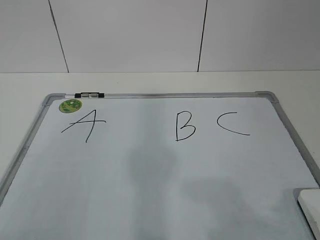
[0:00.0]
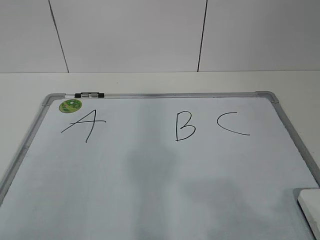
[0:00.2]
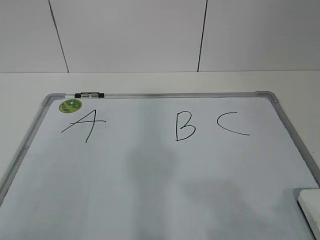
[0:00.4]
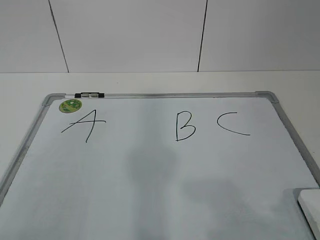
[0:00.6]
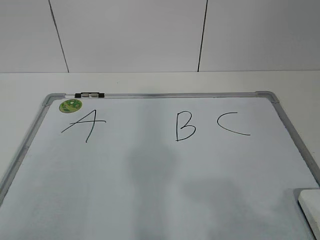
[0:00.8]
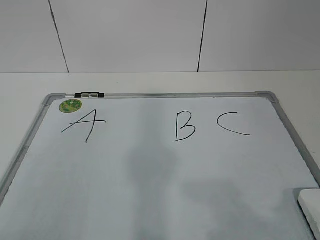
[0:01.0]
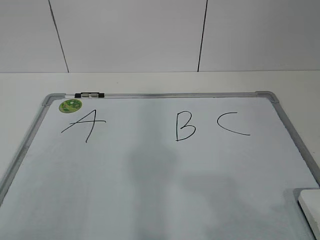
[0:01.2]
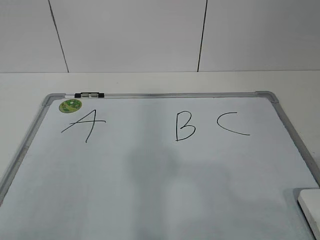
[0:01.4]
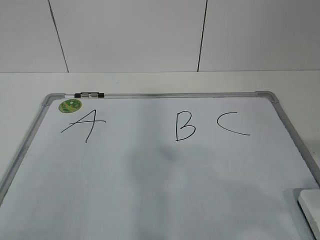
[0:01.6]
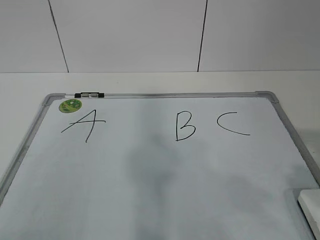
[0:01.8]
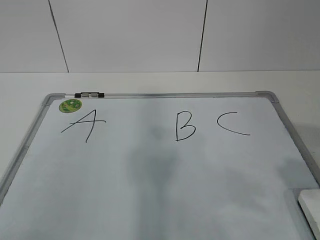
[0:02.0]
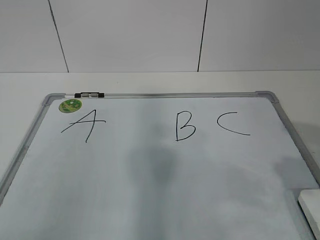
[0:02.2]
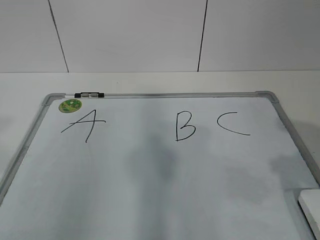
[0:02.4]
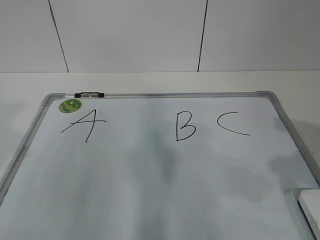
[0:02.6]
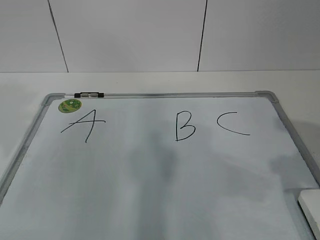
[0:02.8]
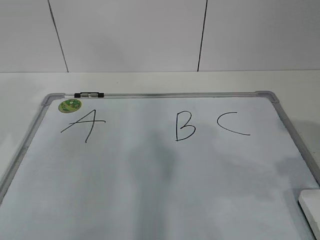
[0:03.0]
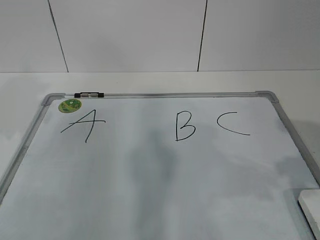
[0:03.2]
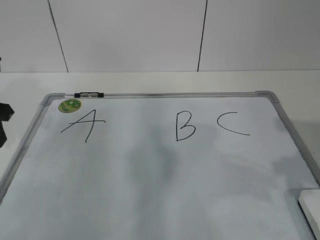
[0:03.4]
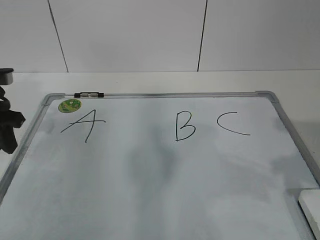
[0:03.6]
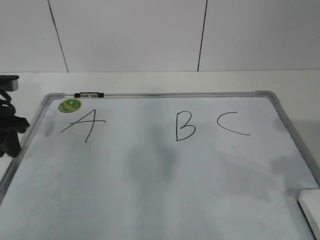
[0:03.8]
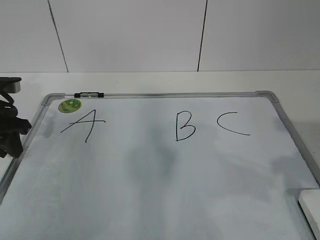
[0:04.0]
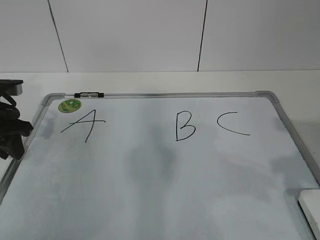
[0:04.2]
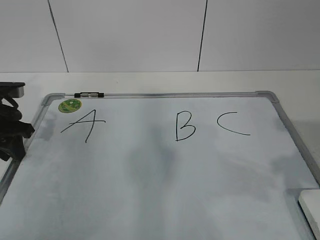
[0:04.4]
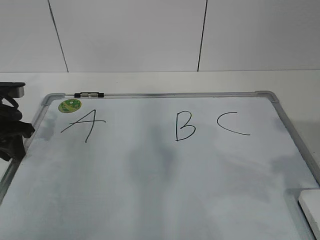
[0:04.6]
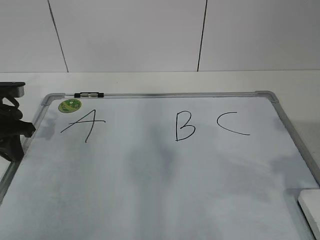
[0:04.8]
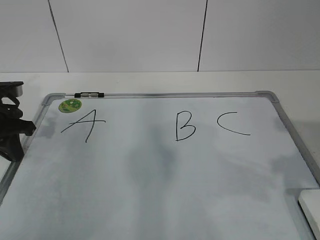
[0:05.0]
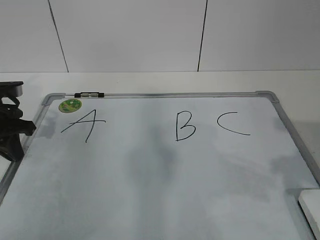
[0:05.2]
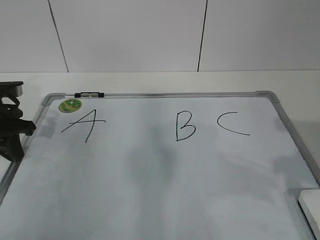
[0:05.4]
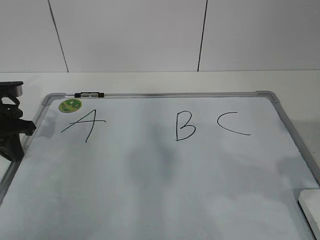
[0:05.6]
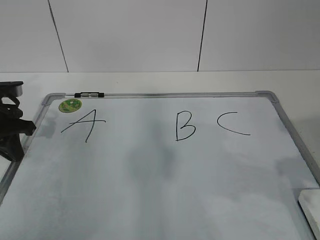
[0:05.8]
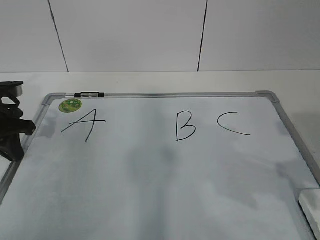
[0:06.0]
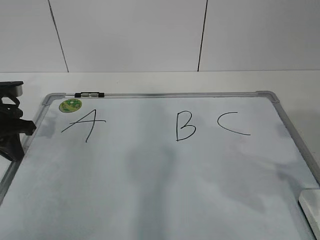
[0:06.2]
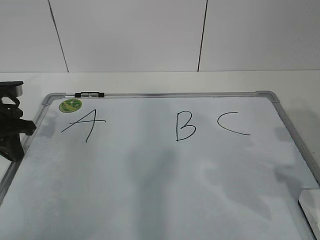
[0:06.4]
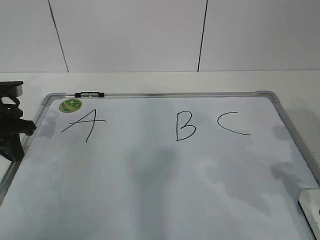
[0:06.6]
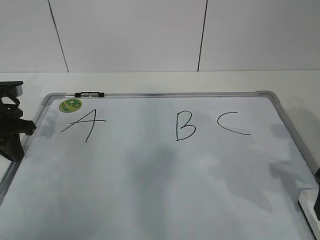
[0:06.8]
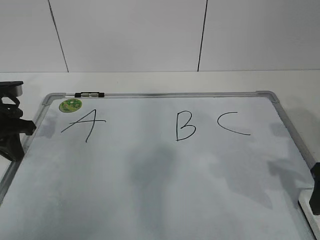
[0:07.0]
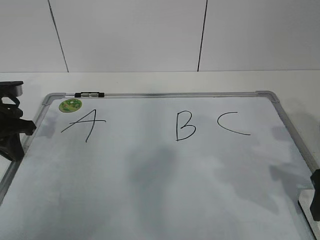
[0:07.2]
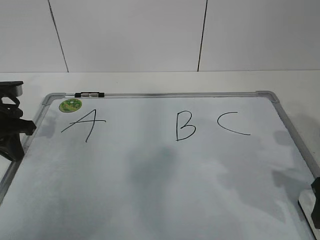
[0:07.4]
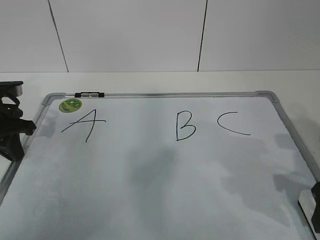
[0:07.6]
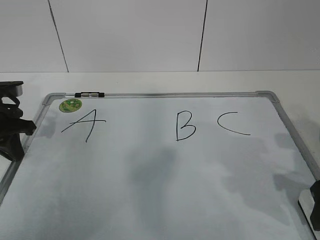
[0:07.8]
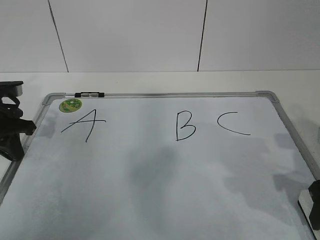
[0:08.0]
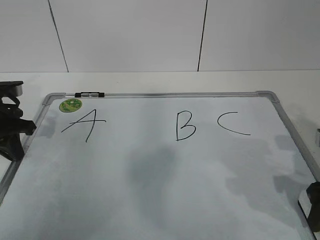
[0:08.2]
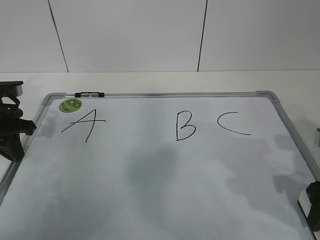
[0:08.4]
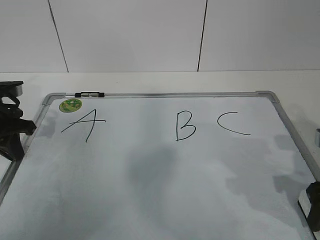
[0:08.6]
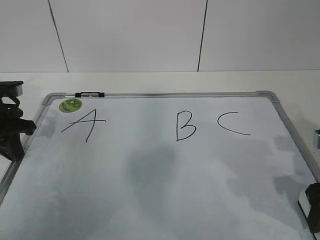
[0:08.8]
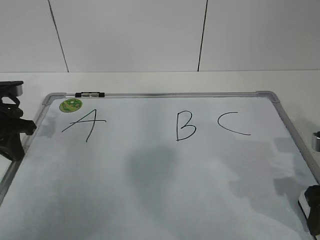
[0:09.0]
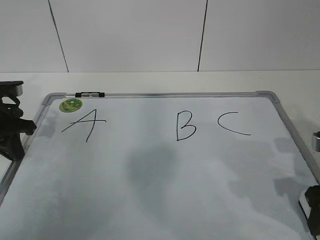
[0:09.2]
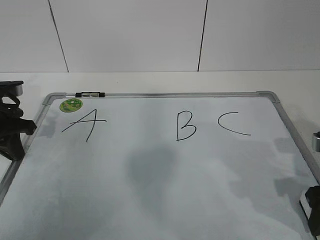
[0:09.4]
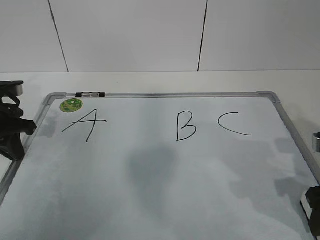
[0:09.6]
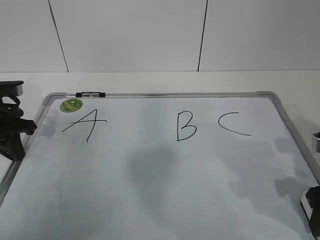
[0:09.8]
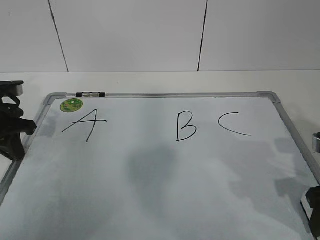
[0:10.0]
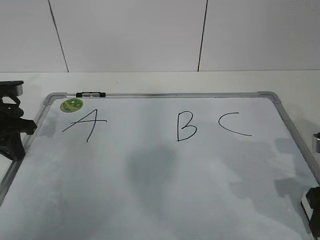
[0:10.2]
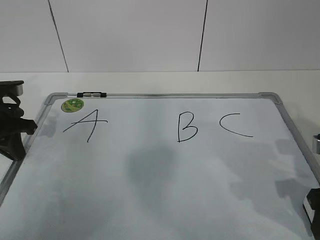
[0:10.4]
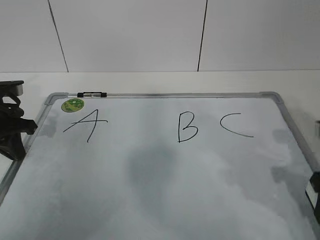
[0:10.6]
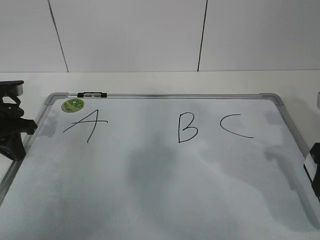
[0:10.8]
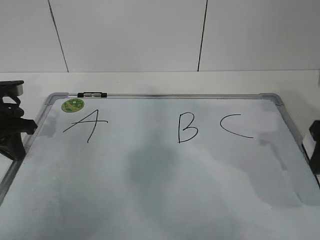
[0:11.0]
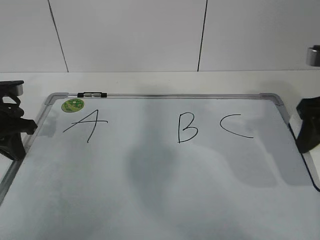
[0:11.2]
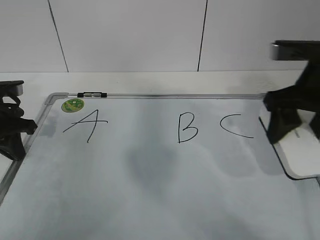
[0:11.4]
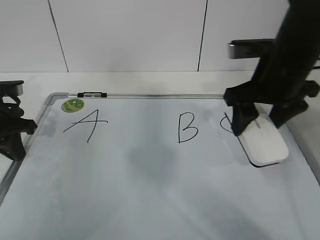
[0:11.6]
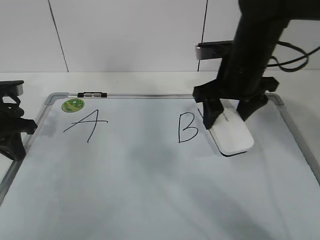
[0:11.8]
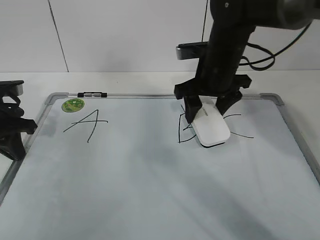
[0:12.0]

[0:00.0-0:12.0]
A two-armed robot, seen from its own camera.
Task of the whole recording: pick up the eraser on the blackboard and erase the letter "B".
Step, 0:00.0 to 0:04.0: Hold the drawing board steady with your left hand.
0:03.0 to 0:04.4: The left gripper is displaced downward and forward by about 15 cm.
0:04.4 to 0:06.0: The left gripper closes.
0:06.0 to 0:07.6: The right gripper shifts approximately 5 cm downward.
0:09.0 to 0:10.4: The right gripper closes up.
0:10.4 to 0:12.0: The right gripper shifts roughly 25 cm forward and to the left.

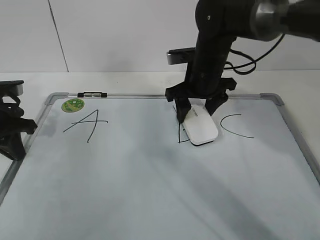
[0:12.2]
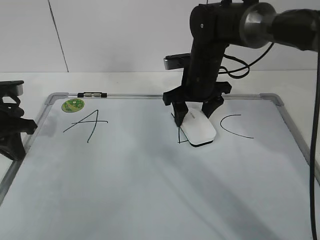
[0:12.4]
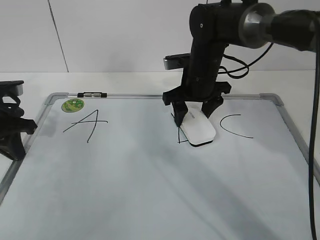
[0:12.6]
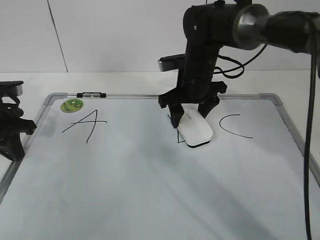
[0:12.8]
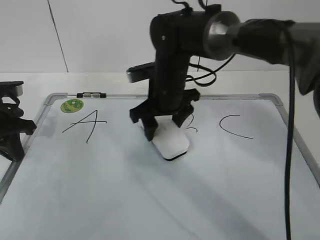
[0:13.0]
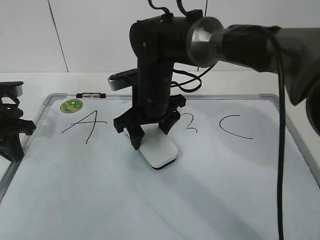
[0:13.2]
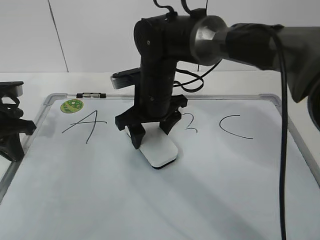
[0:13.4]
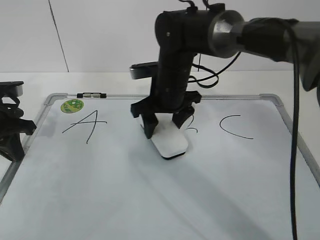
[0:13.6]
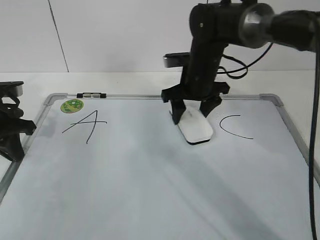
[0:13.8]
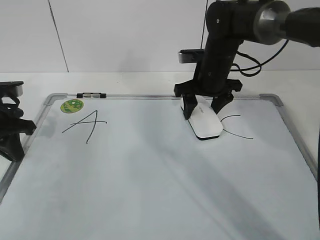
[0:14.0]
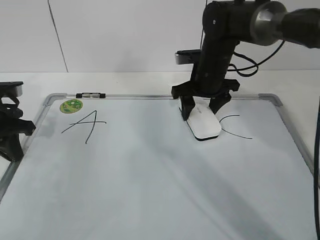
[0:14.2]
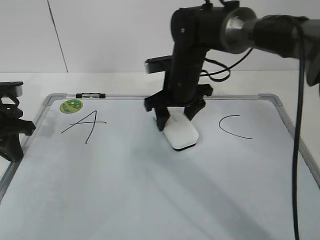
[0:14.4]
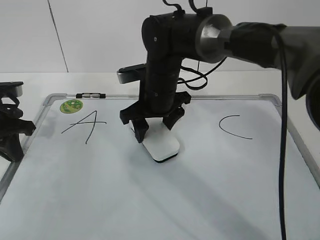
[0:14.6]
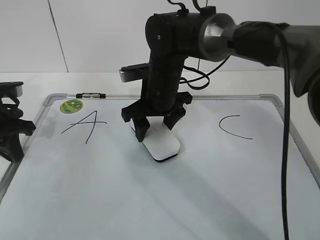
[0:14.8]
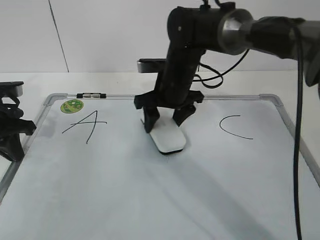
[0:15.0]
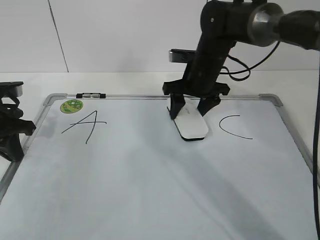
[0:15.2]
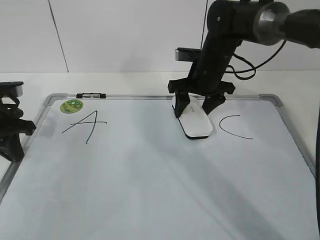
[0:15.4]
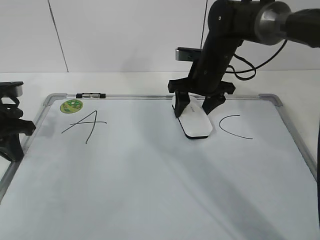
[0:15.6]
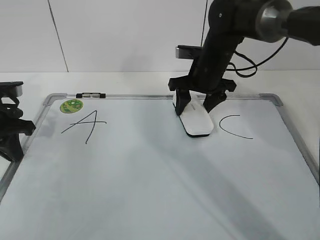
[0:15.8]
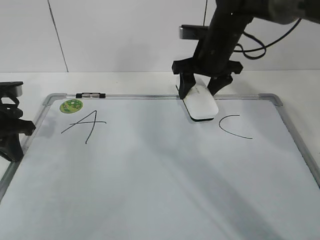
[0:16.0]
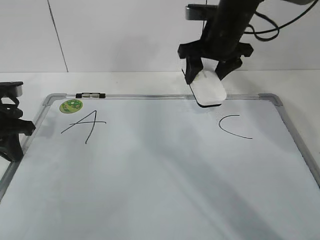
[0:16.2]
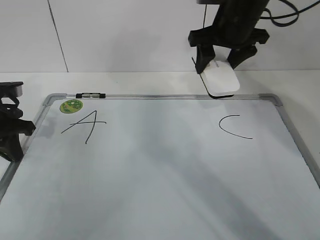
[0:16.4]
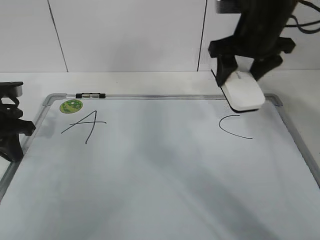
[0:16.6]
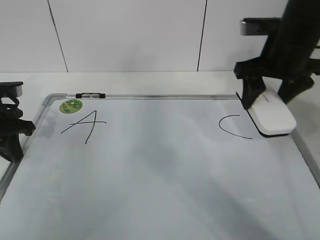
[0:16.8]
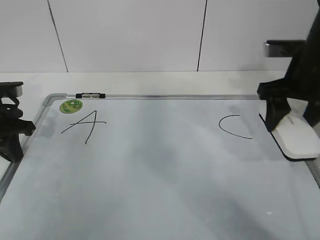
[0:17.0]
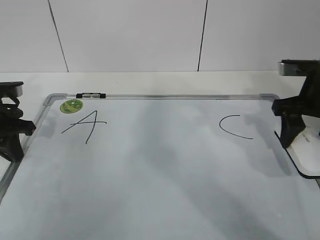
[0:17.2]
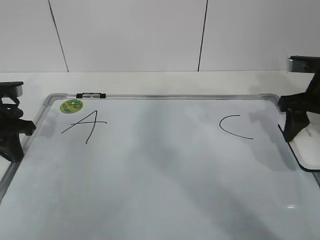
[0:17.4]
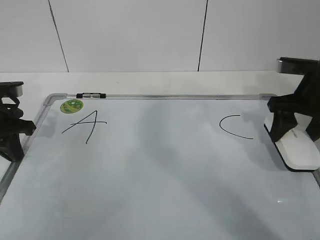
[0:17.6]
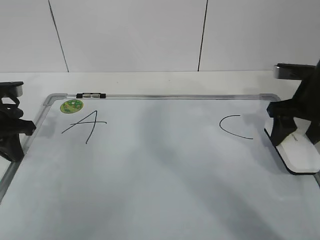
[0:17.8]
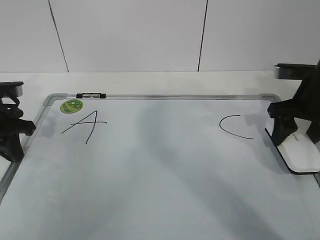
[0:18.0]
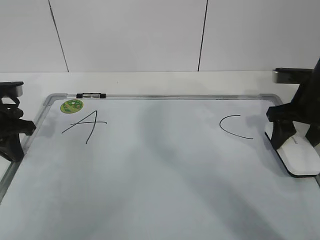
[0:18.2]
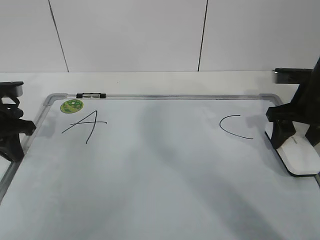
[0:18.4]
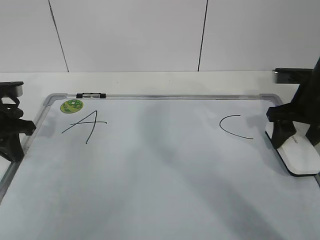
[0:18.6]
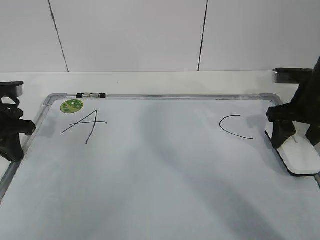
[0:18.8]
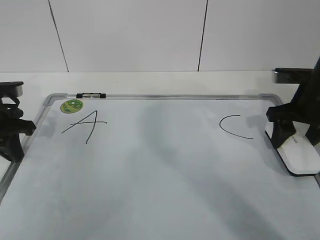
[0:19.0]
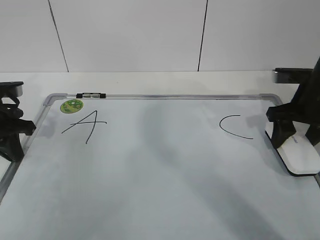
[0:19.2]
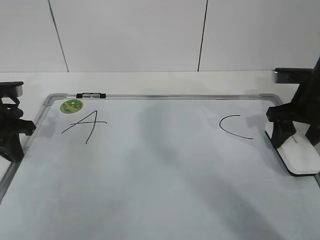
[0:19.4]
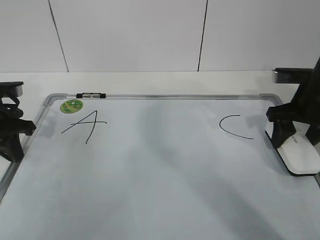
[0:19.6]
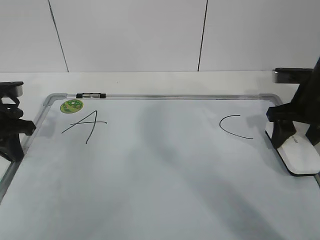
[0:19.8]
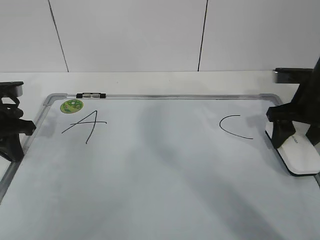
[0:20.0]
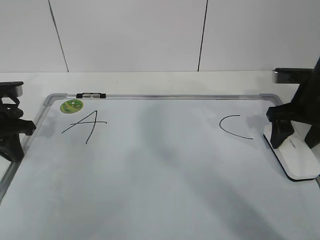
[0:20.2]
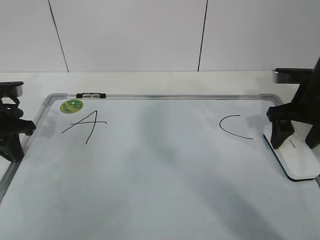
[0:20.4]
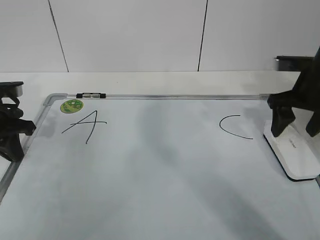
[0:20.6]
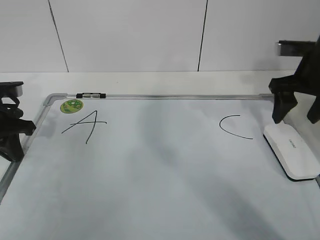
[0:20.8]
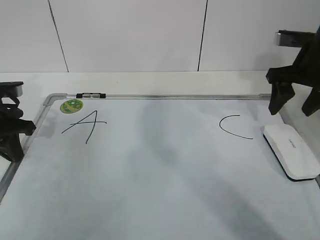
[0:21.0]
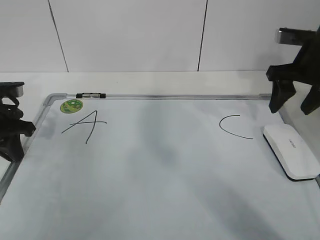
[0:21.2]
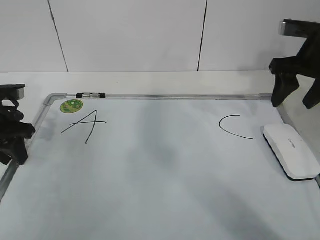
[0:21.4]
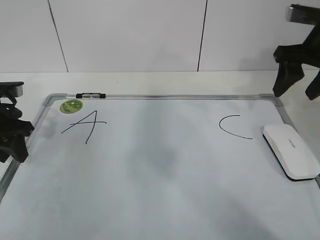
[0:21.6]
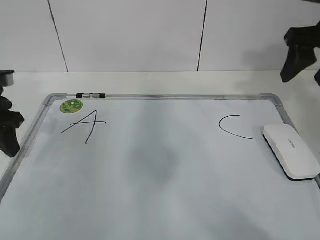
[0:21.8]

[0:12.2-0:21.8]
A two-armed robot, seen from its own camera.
Task of the whole recording: pick up the eraser on the blackboard and erase the letter "B".
Step, 0:13.2 to 0:16.6: Put down the eraser with your right hand.
0:12.2 to 0:13.8: The right gripper reaches some 10 cm to the left, then returns.
0:13.8 to 0:15.4: The right gripper goes to the left and returns, roughly 5 cm each way.
0:15.4 to 0:17.0: The right gripper is displaced to the right, backward and upward by roughly 20 cm.
0:17.0 to 0:18.6: The right gripper heads downward, covering some 5 cm.
0:18.6 to 0:20.2: The right gripper opens its fingers.
0:20.2 to 0:21.8: The left gripper opens its fingers. The right gripper moves upward, roughly 15 cm, and closes its fingers.

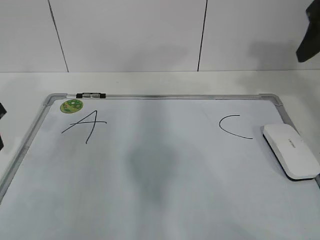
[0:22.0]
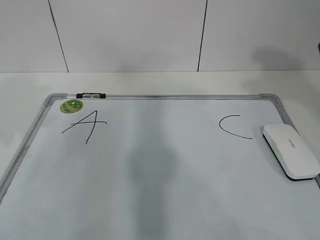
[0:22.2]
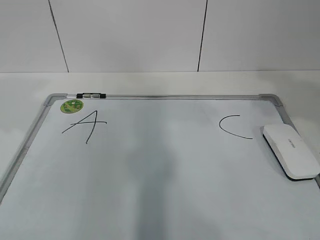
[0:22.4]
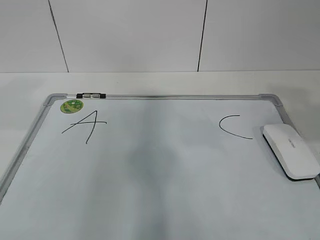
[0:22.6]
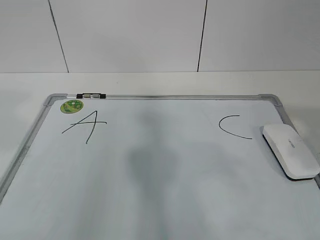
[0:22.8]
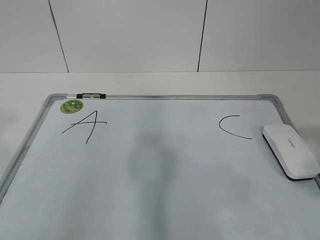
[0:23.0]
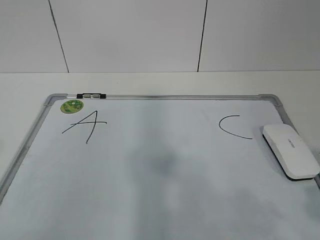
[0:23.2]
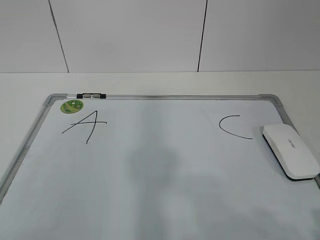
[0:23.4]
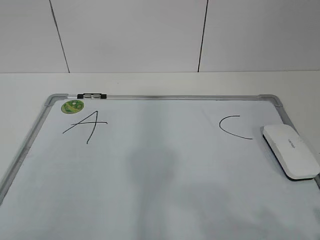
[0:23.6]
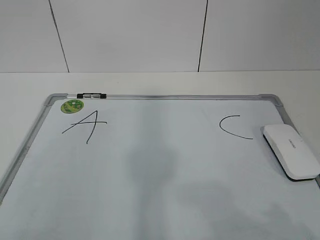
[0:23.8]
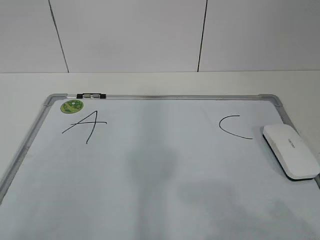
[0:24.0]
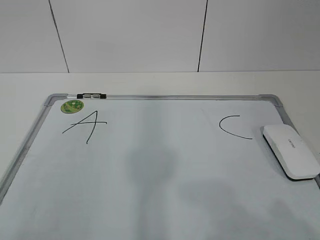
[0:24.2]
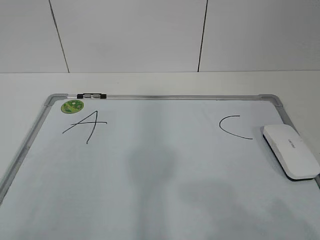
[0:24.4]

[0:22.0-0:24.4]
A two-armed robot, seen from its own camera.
Task of the whole recording: pick up the eraser on the blackboard and erase the letter "B".
0:22.0 to 0:23.2: The grippers both shift backward by roughly 30 cm.
